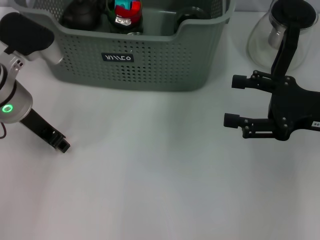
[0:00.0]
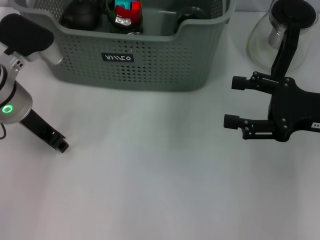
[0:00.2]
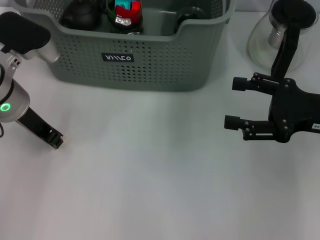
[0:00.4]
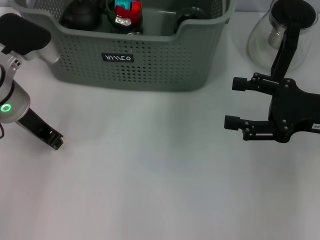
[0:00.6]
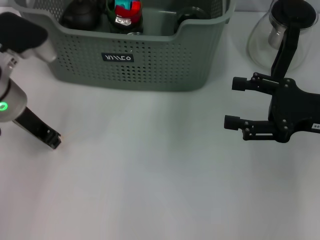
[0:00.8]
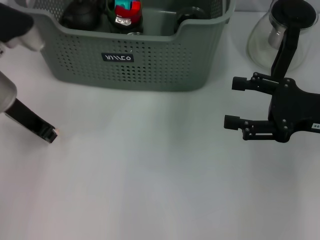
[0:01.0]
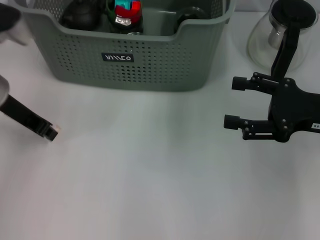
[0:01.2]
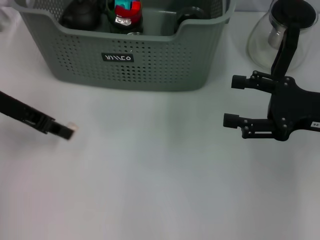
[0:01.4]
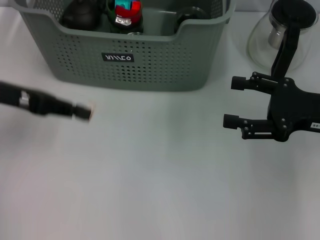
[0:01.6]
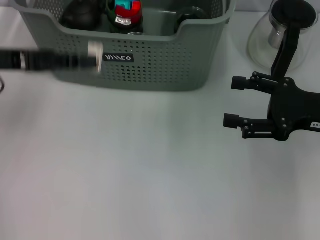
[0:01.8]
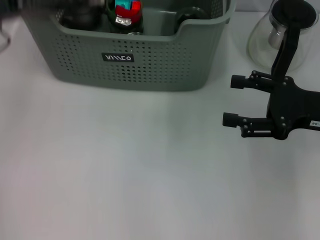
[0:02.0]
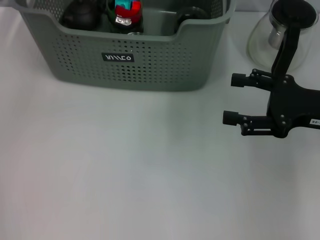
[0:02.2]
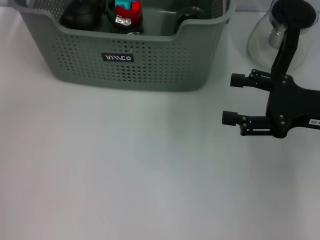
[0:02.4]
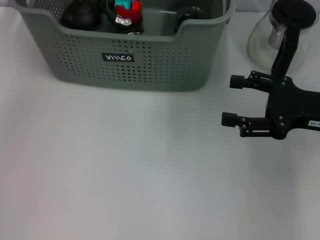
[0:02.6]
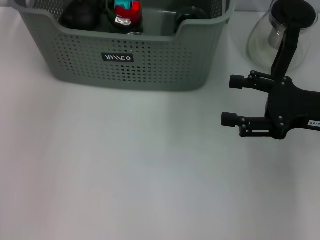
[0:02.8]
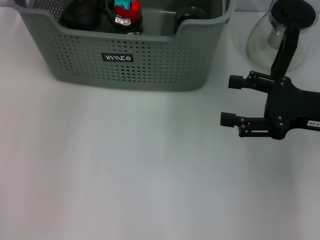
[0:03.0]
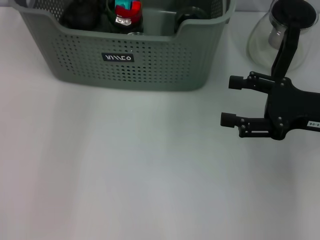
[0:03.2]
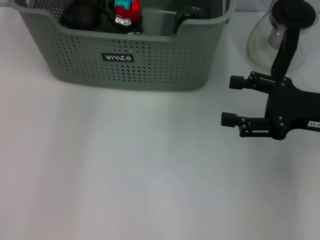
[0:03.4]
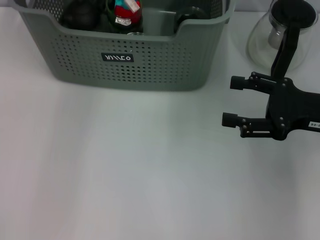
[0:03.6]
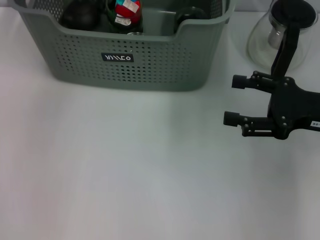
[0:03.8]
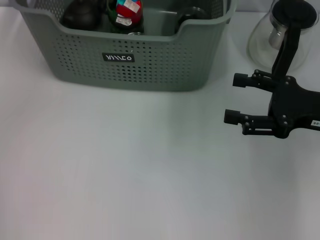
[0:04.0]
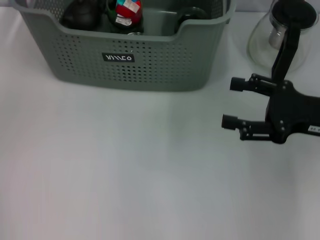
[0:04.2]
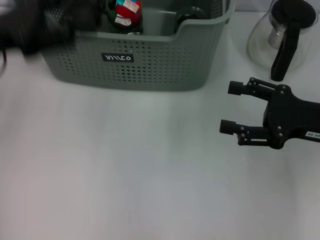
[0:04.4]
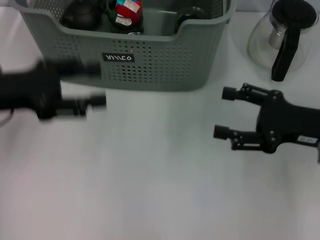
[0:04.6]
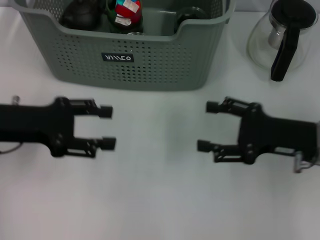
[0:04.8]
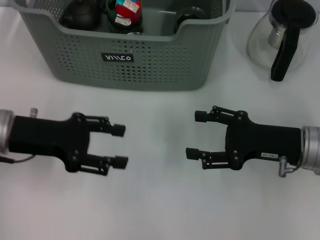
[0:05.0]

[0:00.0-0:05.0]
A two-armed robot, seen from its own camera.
Task of the whole recording: pick up the teacup on the table and place it into the storage bin, pick up the block on the table and place it into the storage bin.
Step, 0:00.8 to 0:03.8: Place the white block in the storage box with left gripper.
0:00.0 to 0:01.6: The left gripper heads to the left, covering some 5 cm.
0:01.6 to 0:03.4: The left gripper heads forward and to the right, covering about 25 cm.
0:03.4 to 0:05.0: The left gripper moves backward, downward and to the left, roughly 30 cm, and opens up. The right gripper heads downward, covering about 5 cm.
